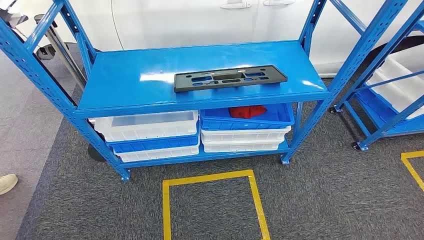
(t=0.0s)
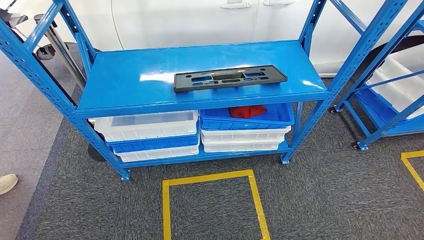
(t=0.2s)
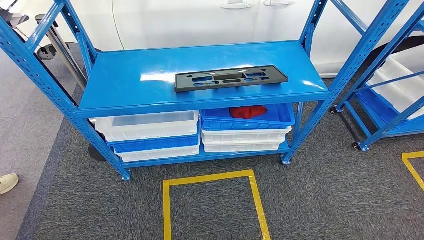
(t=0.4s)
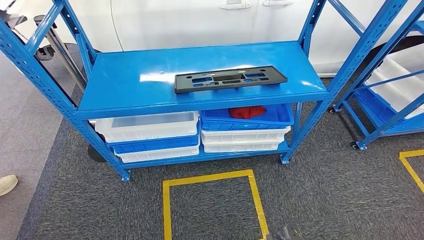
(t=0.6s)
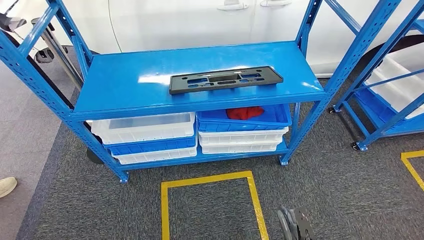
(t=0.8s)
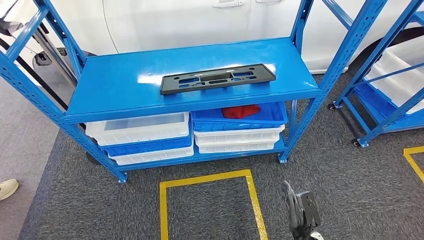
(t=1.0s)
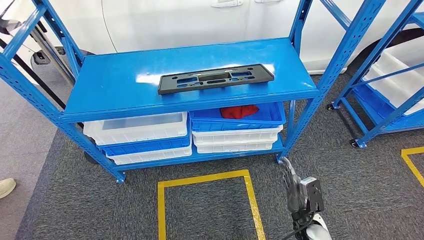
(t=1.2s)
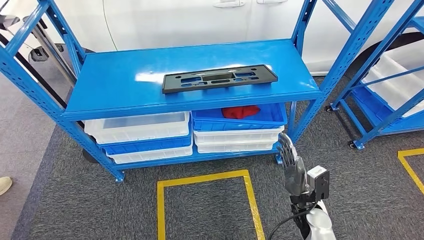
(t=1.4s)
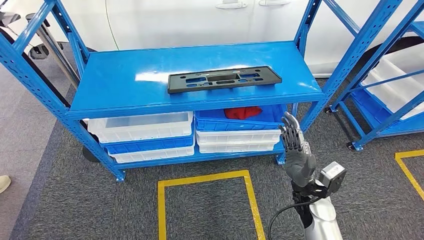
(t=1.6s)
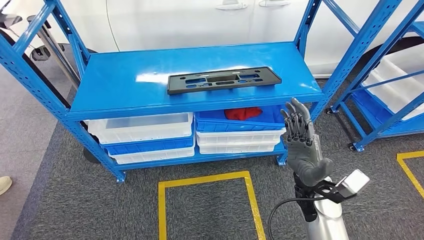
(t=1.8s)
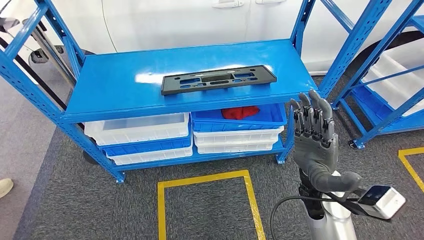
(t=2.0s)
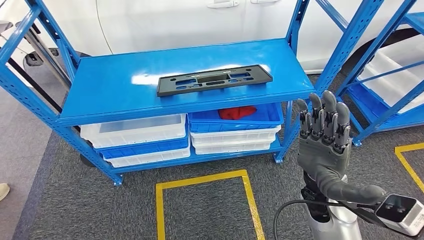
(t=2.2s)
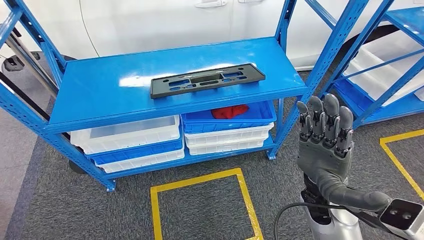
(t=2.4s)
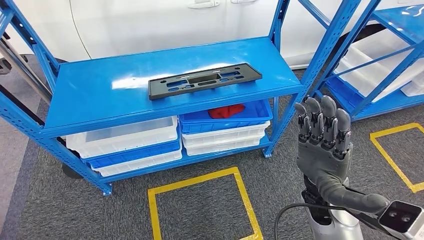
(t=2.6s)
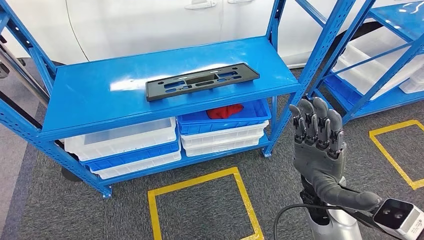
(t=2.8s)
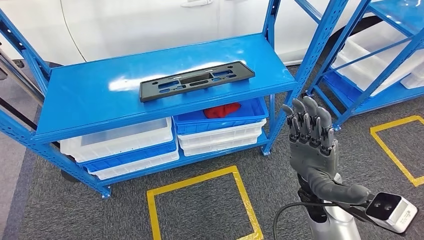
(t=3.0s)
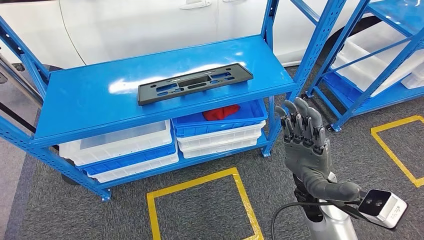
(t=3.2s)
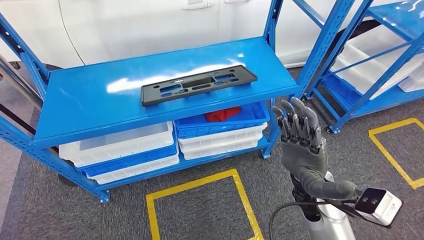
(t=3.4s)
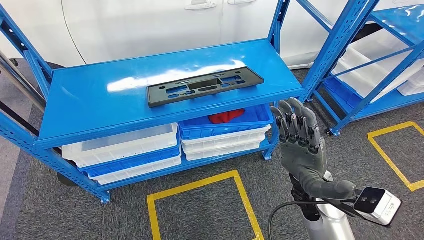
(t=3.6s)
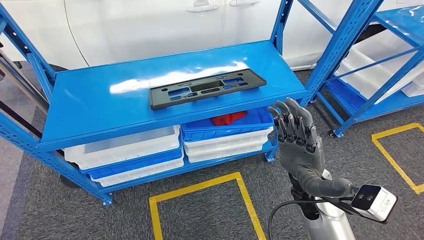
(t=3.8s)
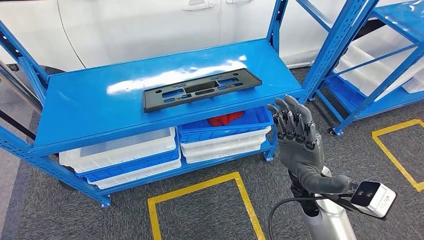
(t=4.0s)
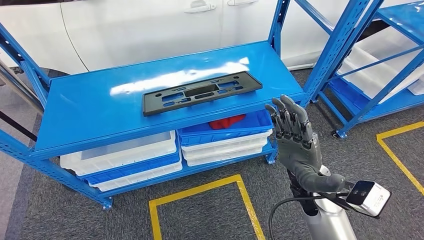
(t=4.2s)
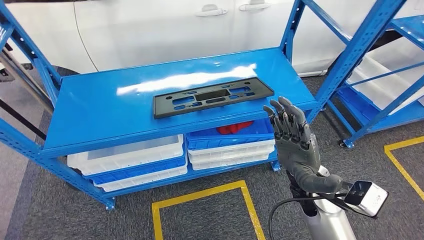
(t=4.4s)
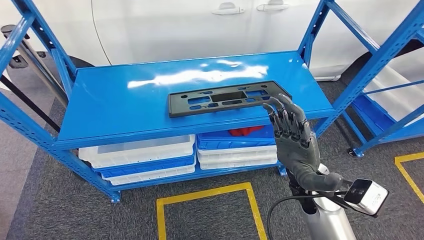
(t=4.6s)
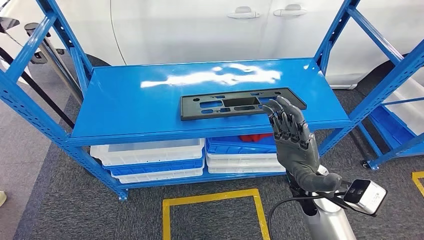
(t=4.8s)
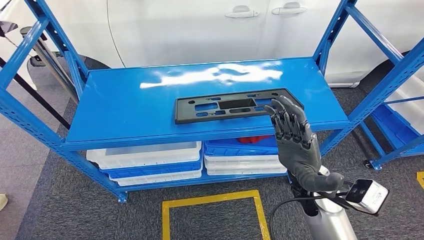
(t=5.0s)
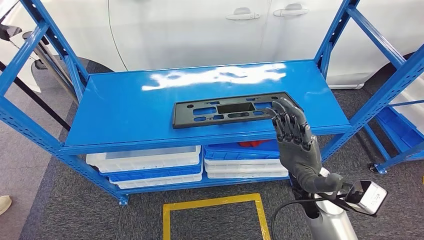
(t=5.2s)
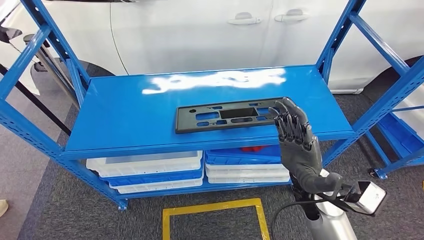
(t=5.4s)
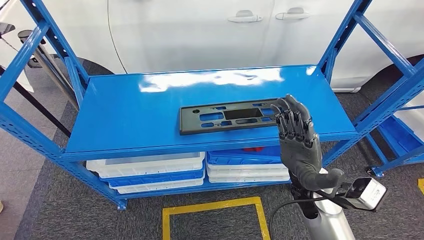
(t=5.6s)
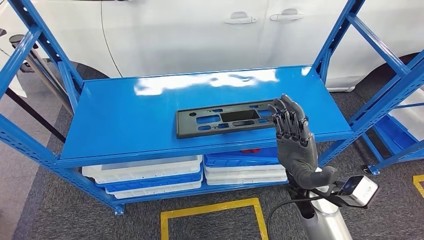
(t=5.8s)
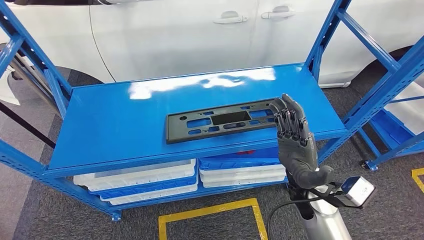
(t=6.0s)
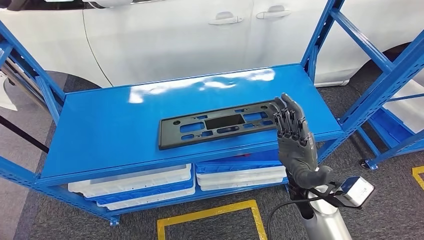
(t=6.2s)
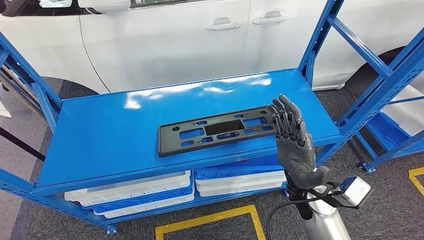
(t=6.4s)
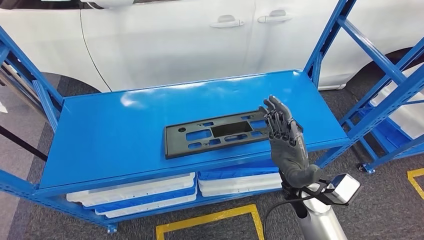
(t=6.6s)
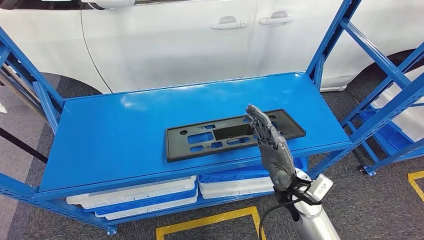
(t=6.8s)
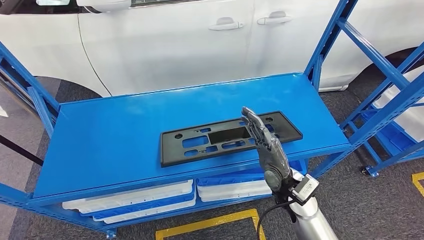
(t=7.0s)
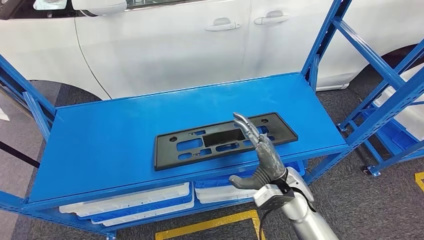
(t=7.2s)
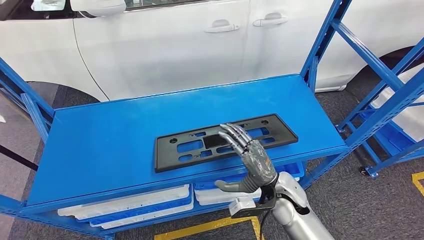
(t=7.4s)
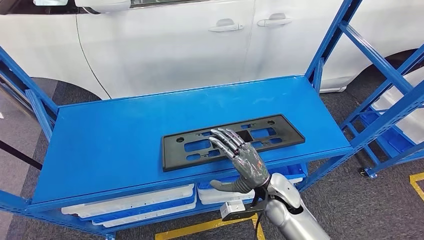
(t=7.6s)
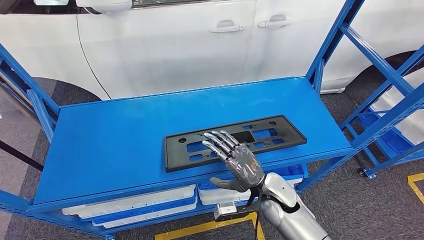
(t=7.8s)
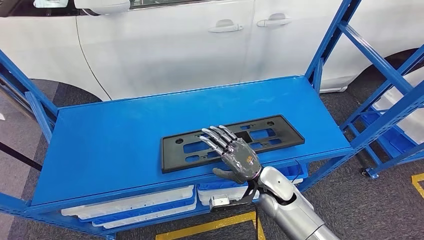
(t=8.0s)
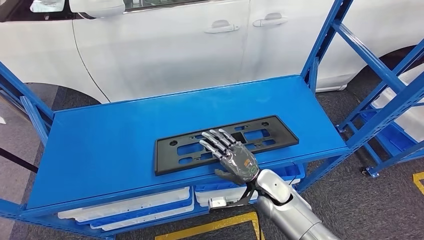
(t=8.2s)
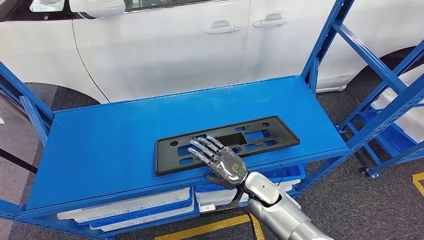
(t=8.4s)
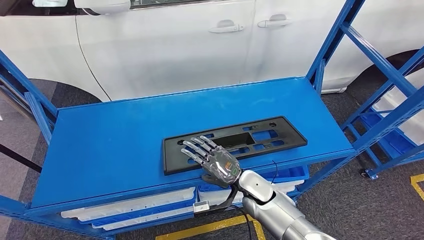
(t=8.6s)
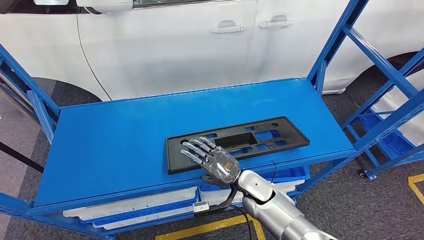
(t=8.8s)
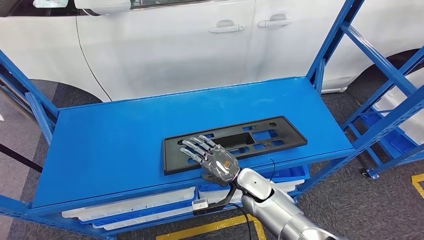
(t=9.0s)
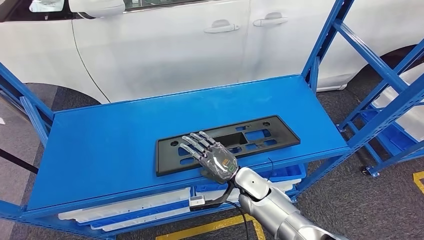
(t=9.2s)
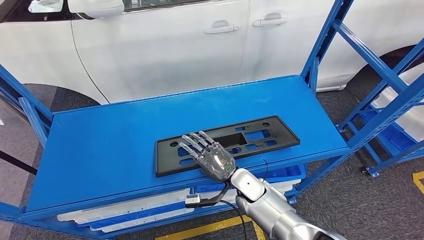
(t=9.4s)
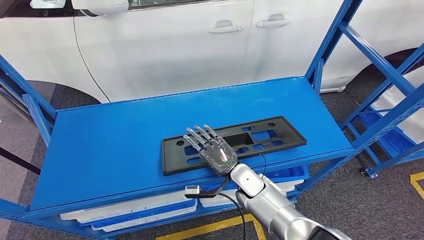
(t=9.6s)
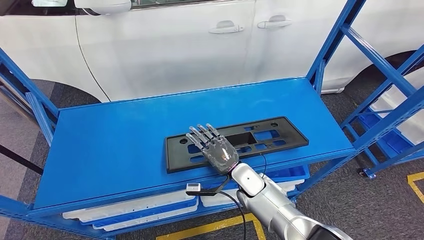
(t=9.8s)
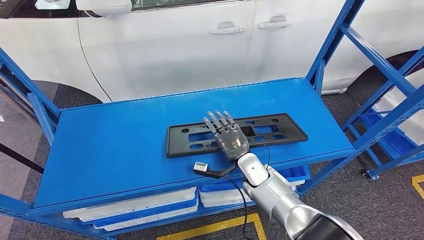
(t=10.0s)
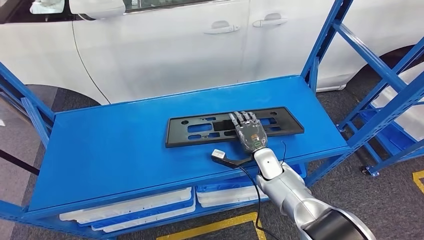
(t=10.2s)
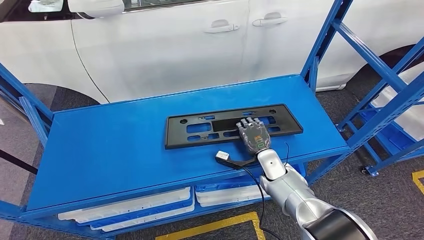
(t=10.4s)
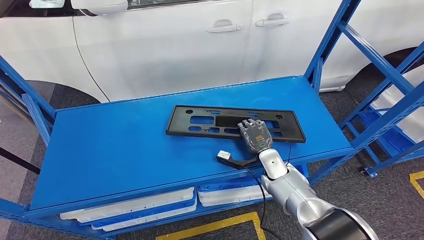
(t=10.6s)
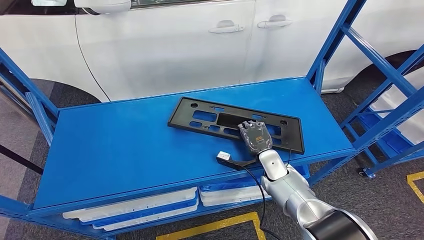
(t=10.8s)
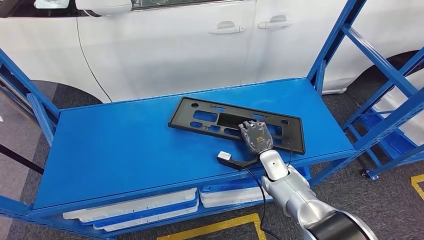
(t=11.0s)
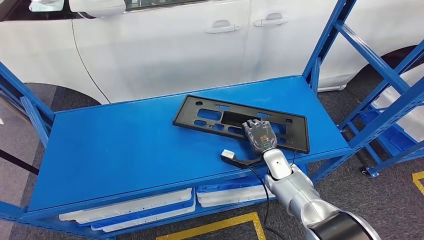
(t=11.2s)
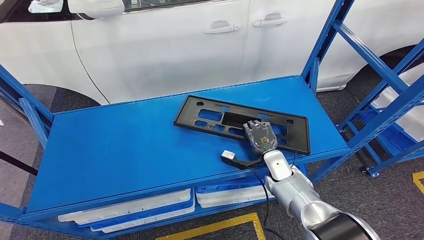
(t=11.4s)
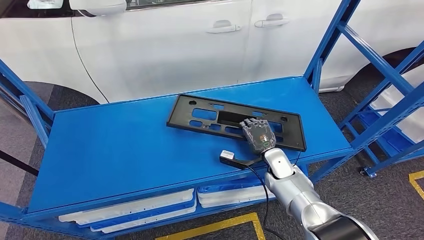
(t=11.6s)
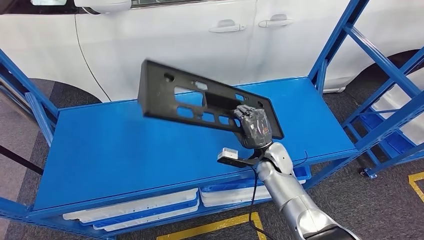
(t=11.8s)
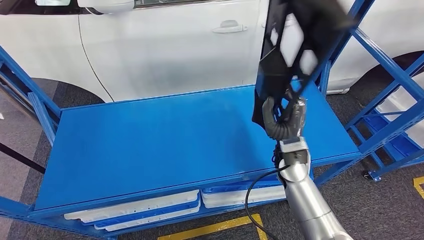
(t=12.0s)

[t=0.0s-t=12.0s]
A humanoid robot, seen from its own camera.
t=7.6s to t=9.0s: The right hand moves to the left, approximately 5 cm.

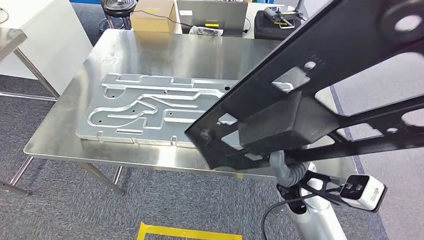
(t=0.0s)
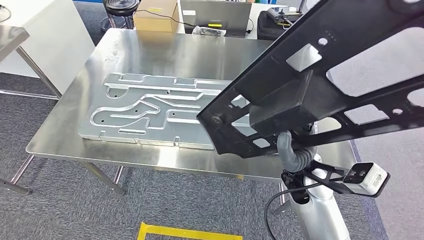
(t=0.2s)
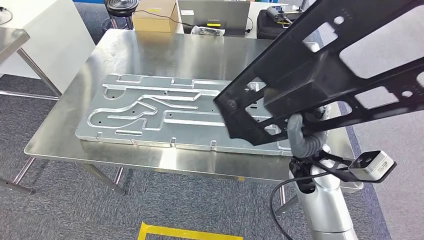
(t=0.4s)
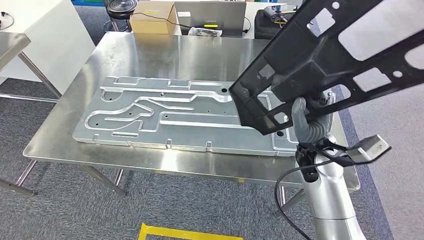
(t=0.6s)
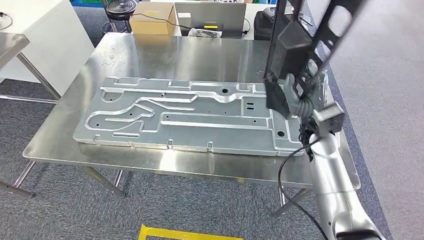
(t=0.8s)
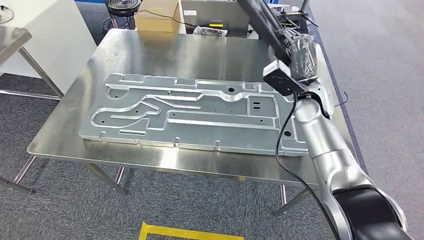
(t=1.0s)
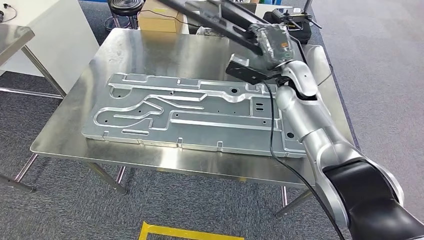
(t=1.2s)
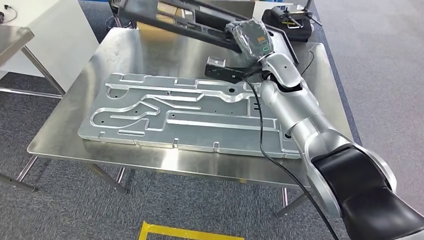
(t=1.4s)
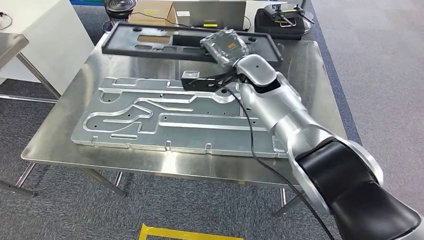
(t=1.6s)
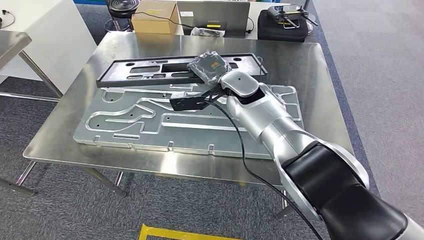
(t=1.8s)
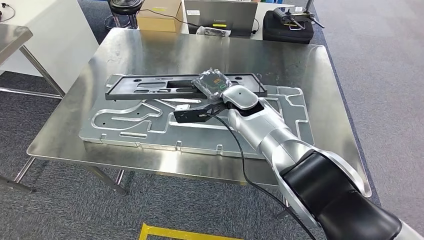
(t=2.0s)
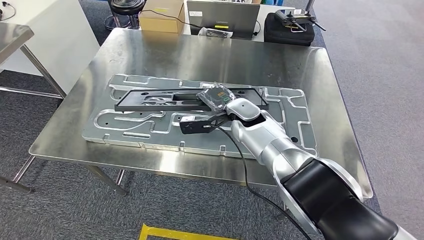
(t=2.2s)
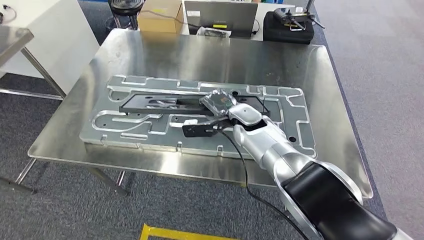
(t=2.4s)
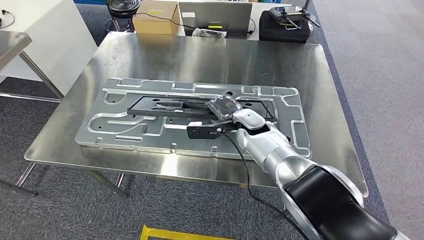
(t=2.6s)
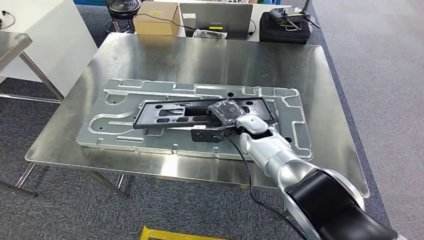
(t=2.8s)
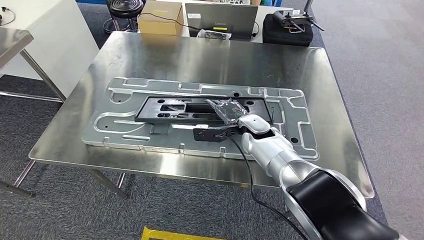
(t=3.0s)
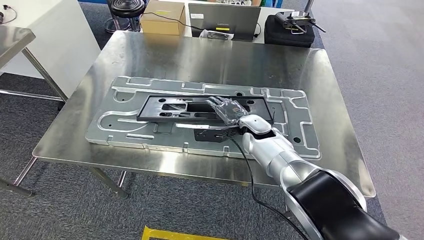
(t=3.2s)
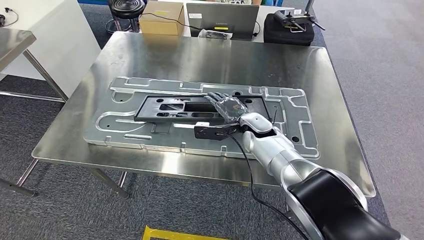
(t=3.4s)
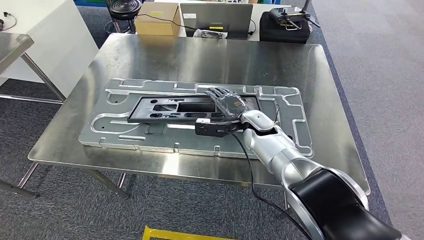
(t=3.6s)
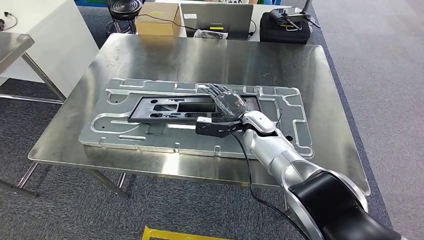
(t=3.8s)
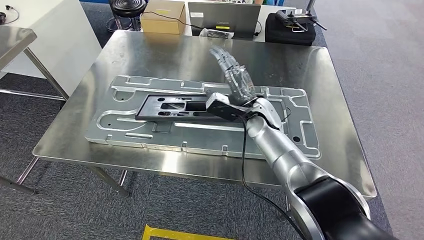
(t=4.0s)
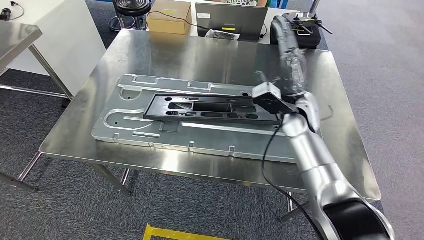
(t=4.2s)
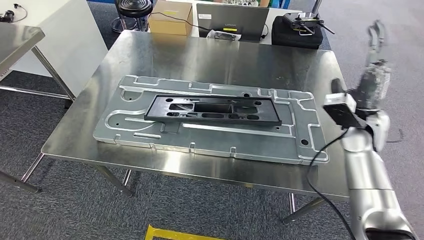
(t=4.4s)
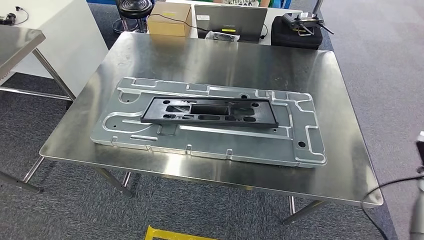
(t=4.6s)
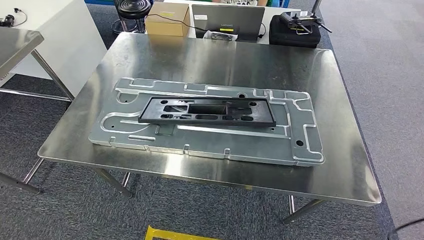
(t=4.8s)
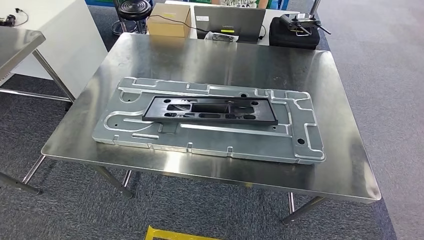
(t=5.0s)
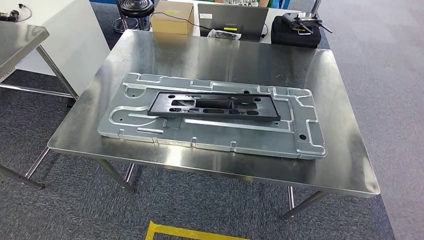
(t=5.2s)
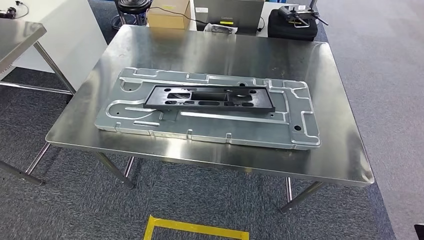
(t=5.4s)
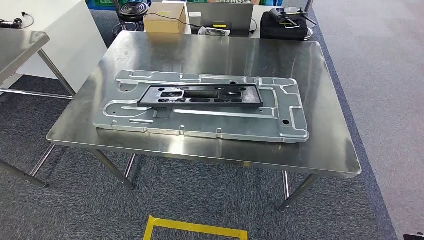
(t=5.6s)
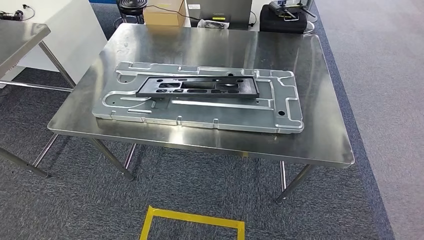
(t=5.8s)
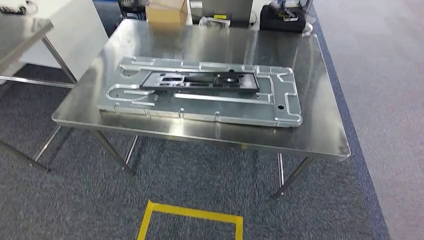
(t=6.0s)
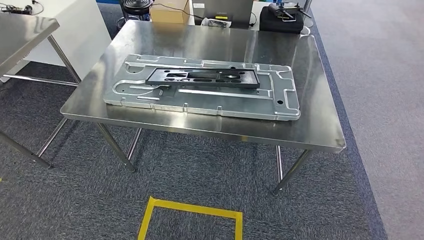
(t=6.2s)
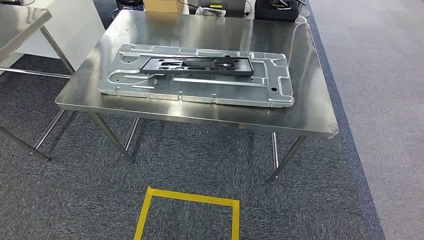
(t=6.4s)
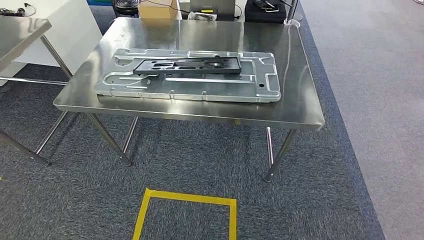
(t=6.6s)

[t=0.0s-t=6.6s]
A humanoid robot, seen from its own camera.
Step, t=1.0s to t=4.6s: Insert the large material into the corresponding slot on the workbench.
Step, t=4.8s to t=6.6s: Move to the initial position of the shelf.
